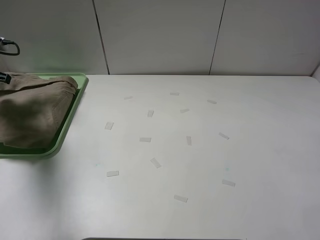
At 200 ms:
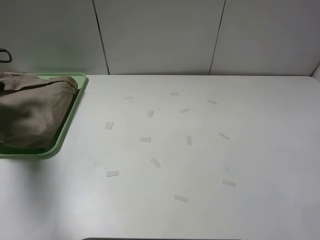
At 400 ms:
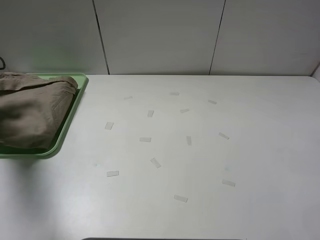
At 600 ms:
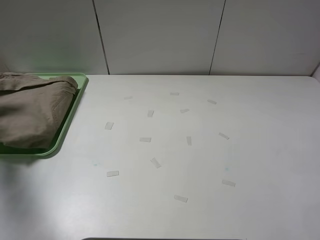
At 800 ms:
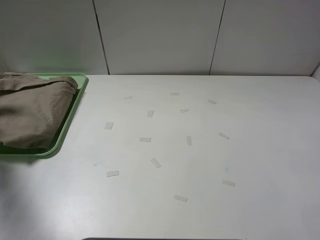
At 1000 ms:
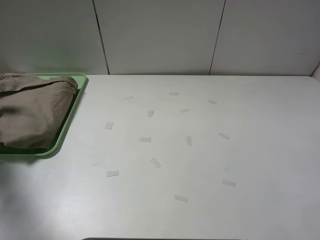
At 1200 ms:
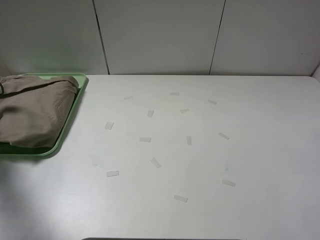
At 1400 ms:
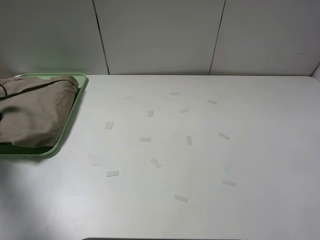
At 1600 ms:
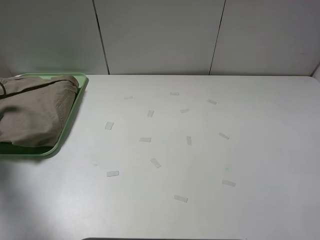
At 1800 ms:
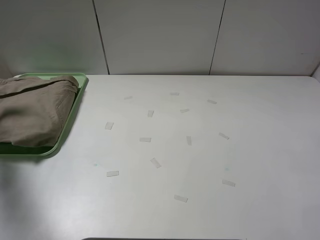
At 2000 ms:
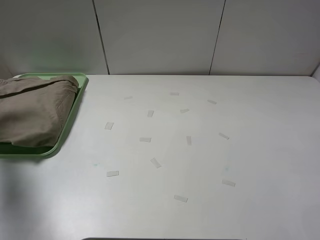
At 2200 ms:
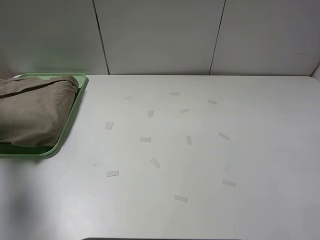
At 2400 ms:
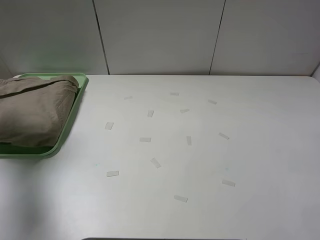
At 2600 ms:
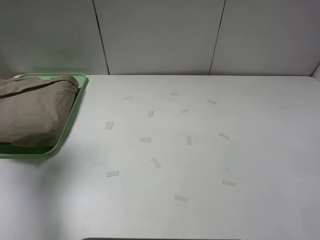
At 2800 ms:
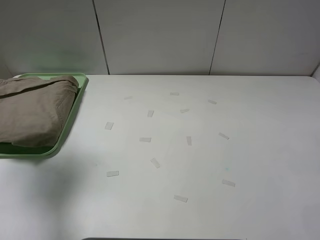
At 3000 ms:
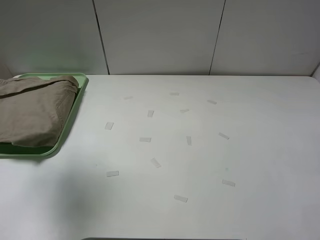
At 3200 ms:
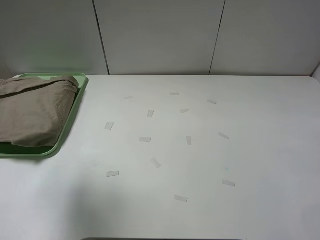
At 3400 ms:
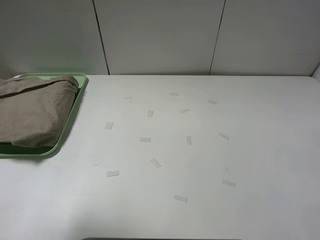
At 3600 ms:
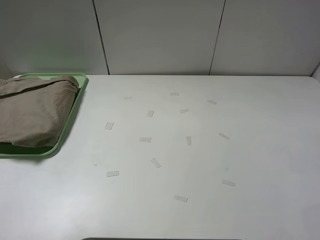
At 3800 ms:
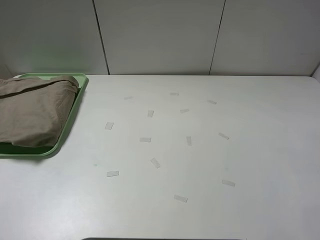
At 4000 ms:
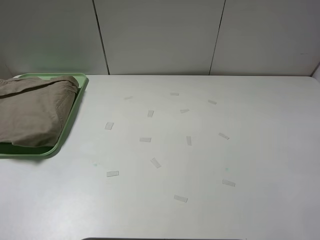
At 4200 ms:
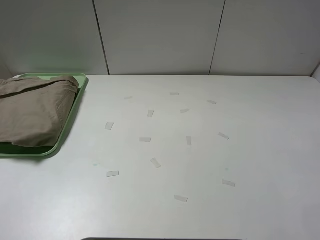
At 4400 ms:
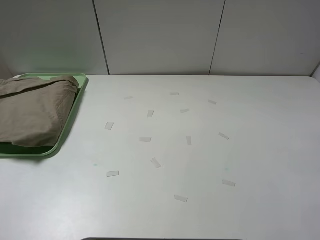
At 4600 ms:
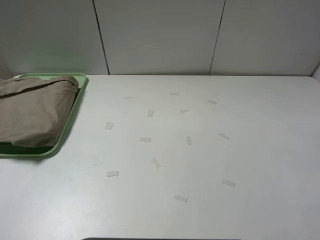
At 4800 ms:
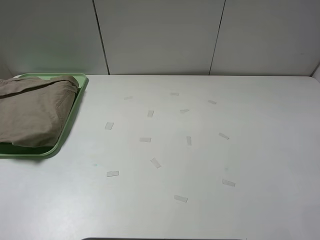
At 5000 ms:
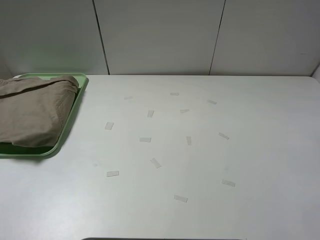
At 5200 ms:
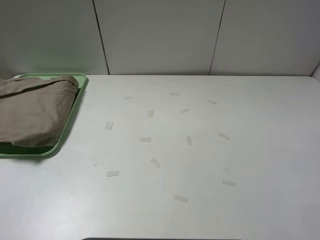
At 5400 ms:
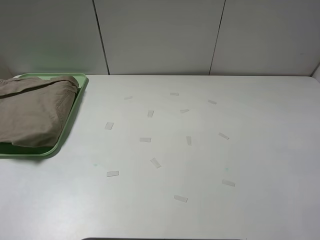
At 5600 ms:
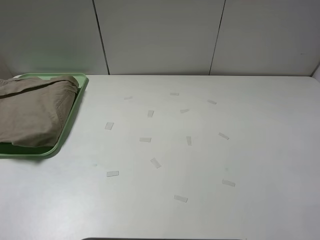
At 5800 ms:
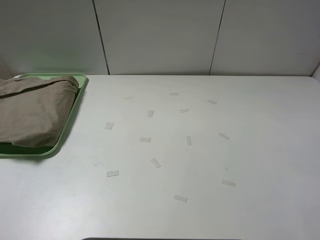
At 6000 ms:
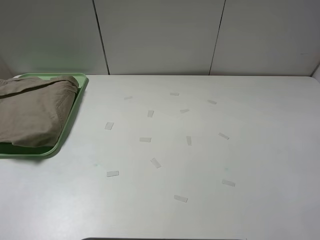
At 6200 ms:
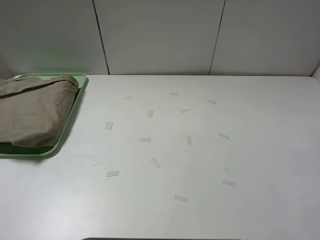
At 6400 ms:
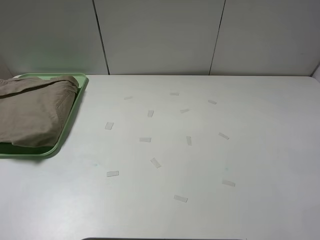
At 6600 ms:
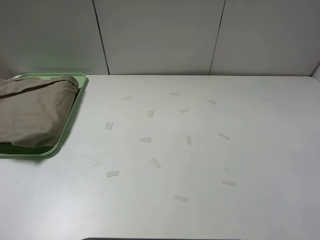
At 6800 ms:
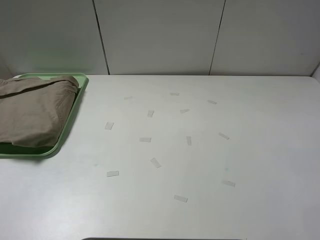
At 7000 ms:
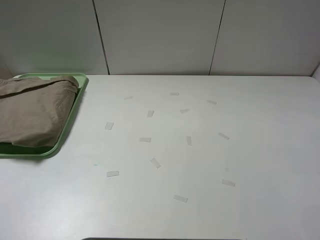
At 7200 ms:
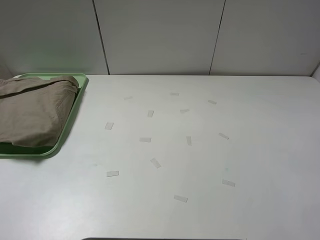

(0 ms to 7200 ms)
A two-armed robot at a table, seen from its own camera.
Task of the whole recording: fold the khaki jeans in half with two grippers, then fold them in half again, and use the left claw to place the folded fold khaki jeans on the tray.
0 ms - 1400 ms: The left gripper moves downward, some 10 cm.
1400 ms - 2800 ms: The left gripper is displaced upward by some 25 cm, and opens.
2800 ms - 4400 ms: The left gripper moves backward, roughly 25 cm.
